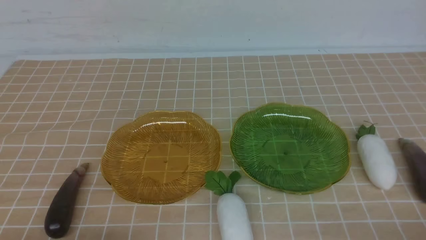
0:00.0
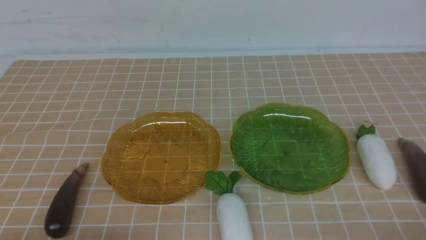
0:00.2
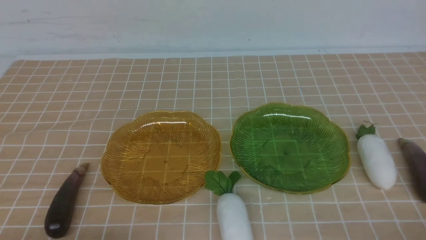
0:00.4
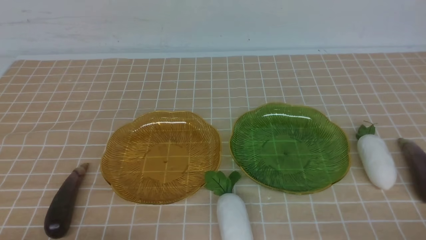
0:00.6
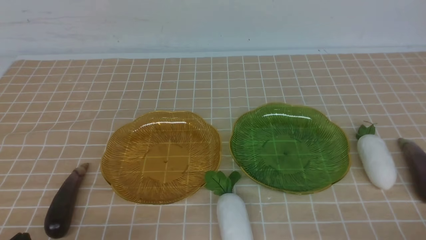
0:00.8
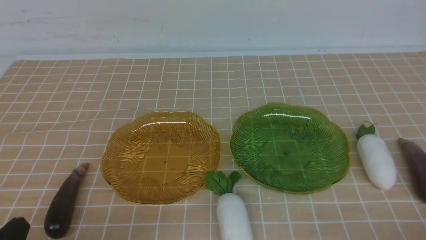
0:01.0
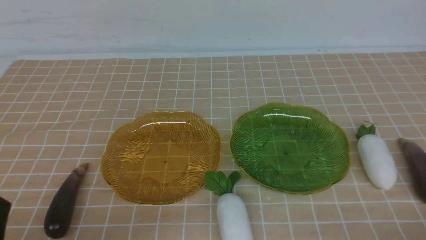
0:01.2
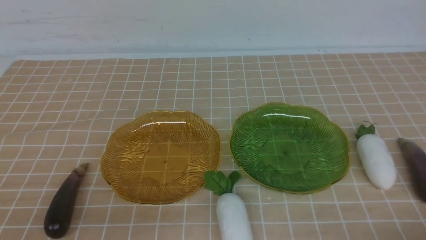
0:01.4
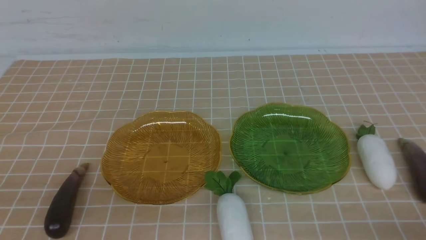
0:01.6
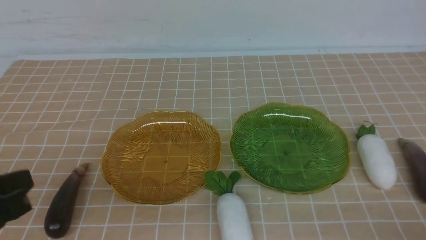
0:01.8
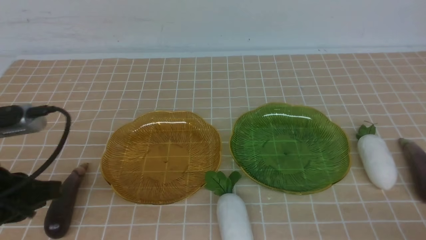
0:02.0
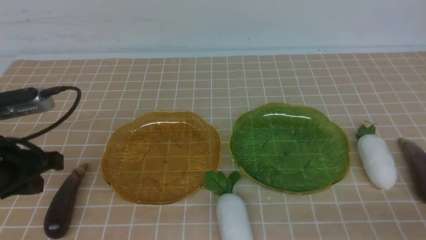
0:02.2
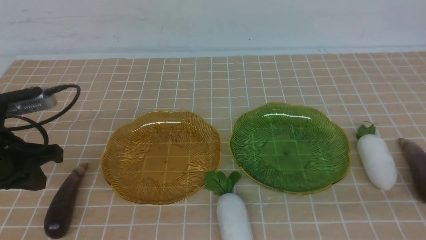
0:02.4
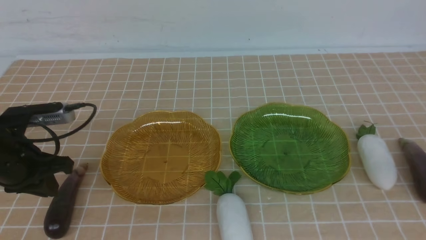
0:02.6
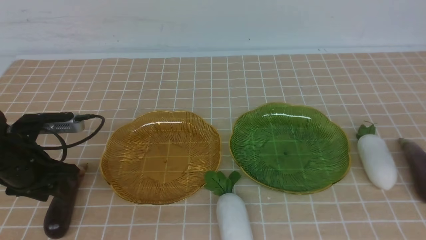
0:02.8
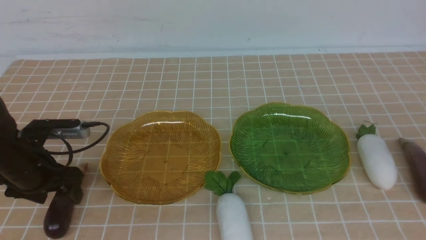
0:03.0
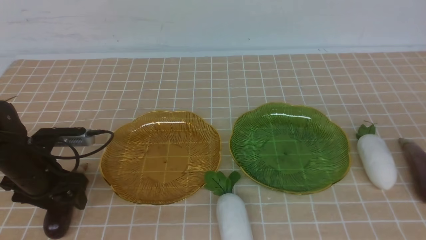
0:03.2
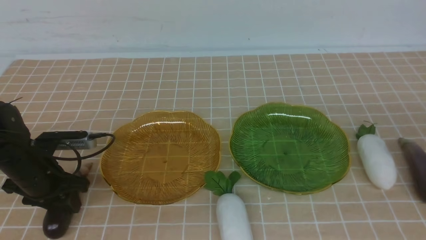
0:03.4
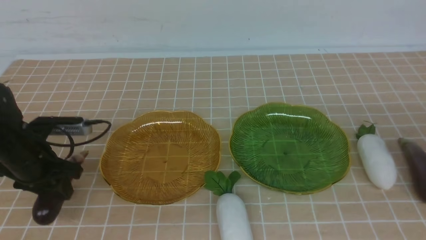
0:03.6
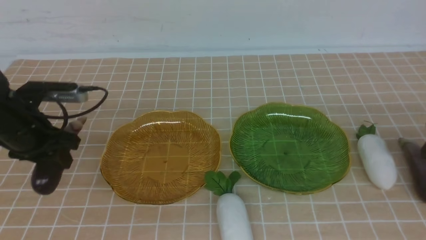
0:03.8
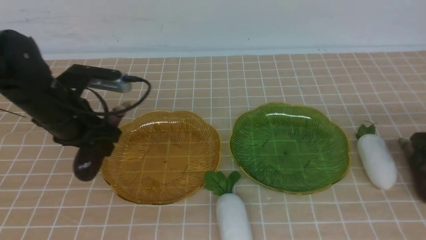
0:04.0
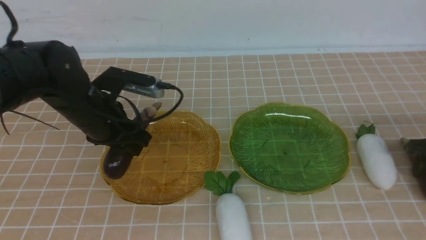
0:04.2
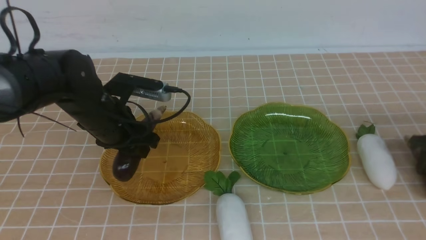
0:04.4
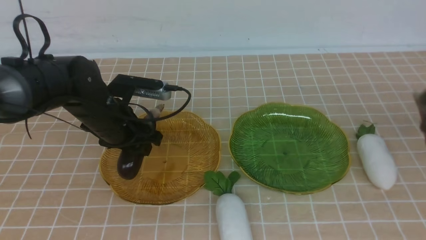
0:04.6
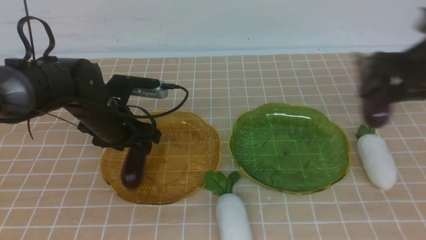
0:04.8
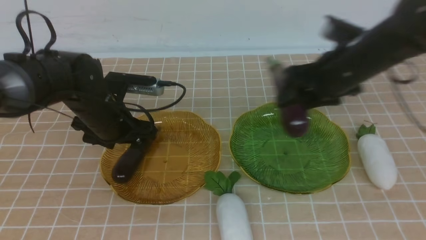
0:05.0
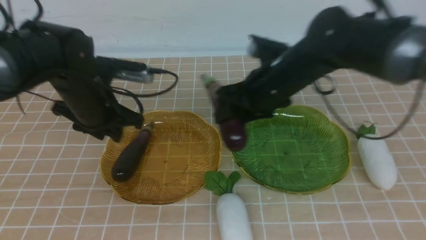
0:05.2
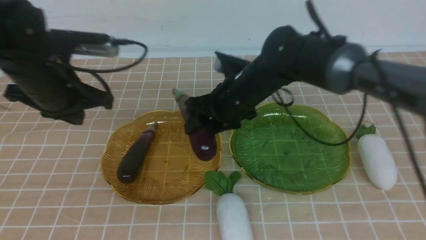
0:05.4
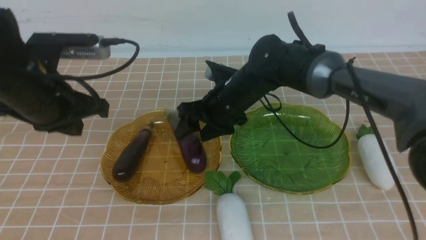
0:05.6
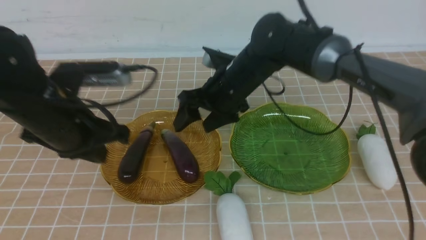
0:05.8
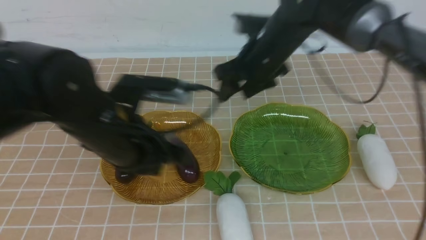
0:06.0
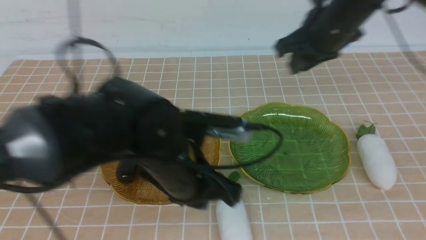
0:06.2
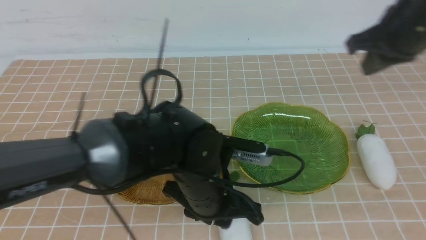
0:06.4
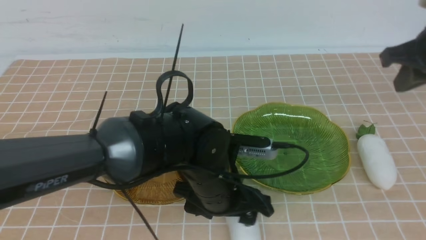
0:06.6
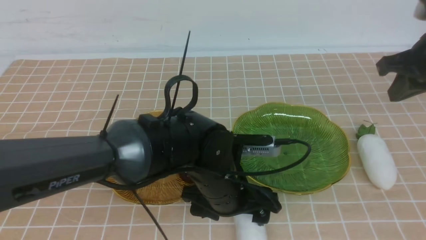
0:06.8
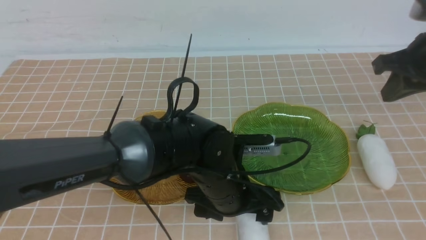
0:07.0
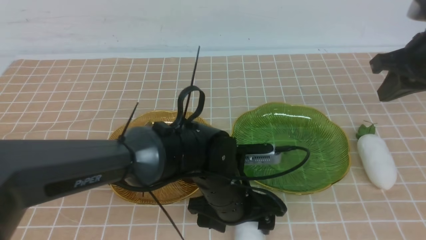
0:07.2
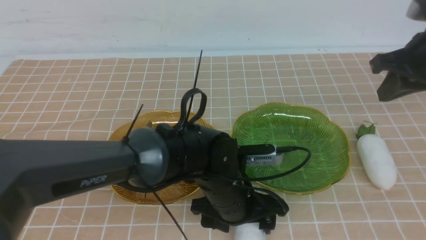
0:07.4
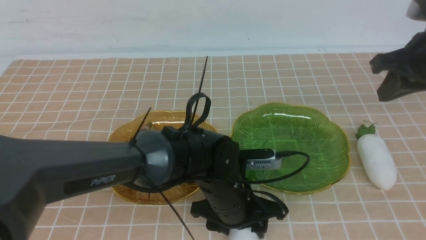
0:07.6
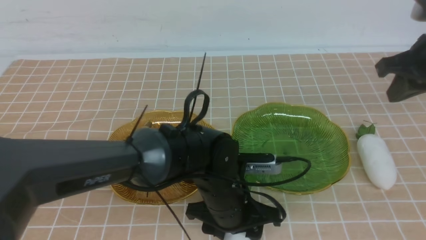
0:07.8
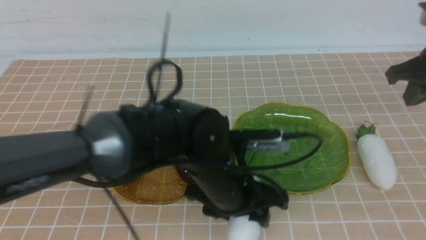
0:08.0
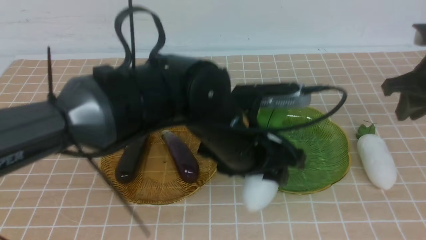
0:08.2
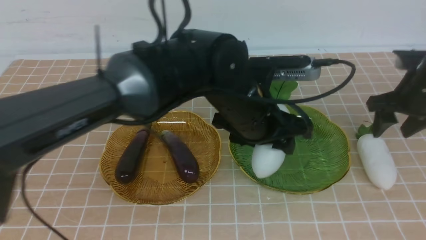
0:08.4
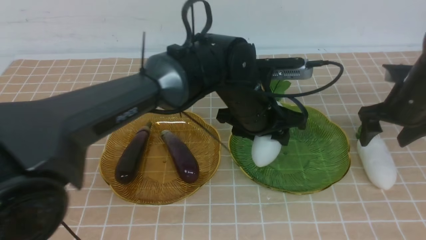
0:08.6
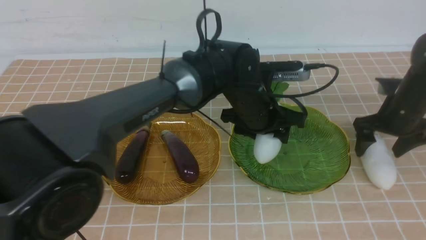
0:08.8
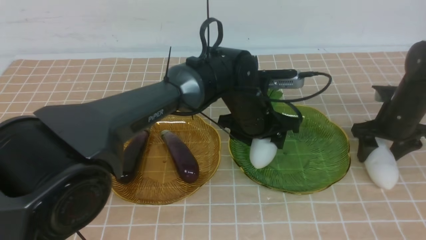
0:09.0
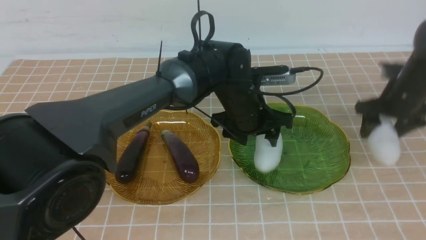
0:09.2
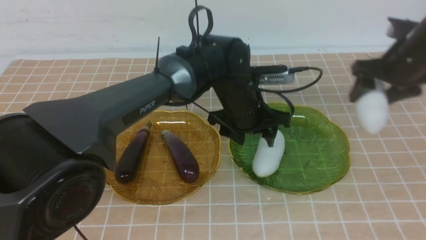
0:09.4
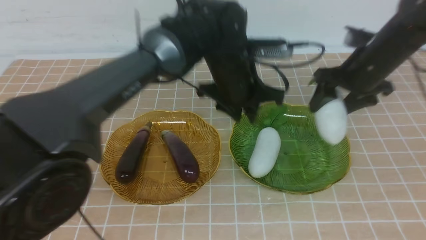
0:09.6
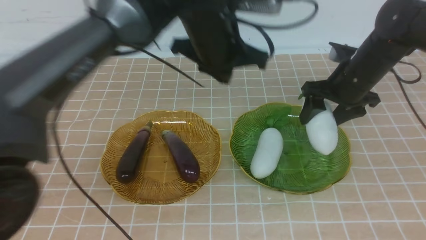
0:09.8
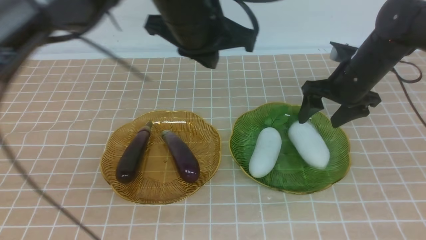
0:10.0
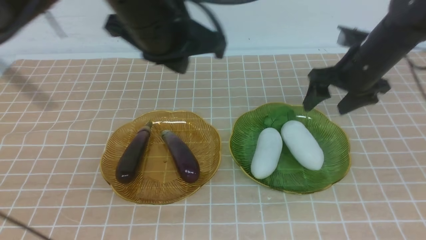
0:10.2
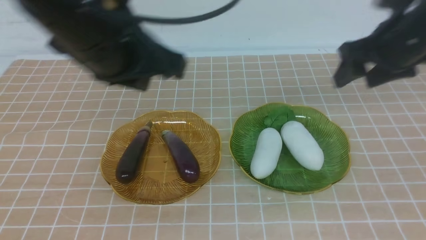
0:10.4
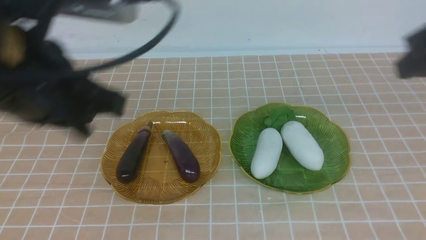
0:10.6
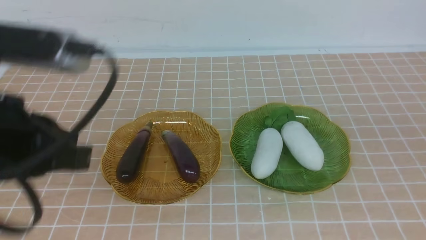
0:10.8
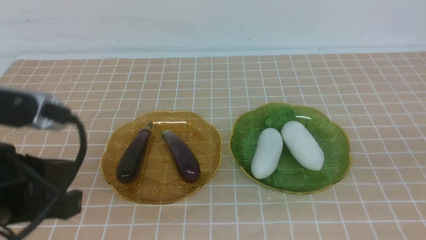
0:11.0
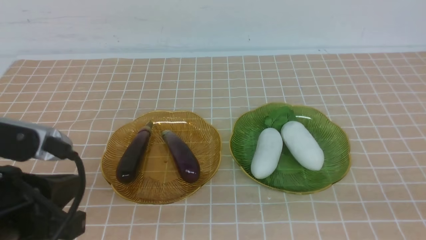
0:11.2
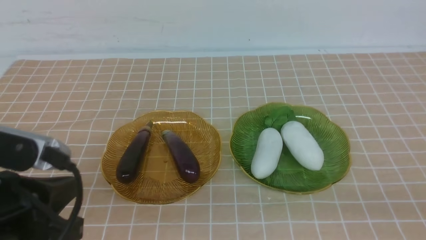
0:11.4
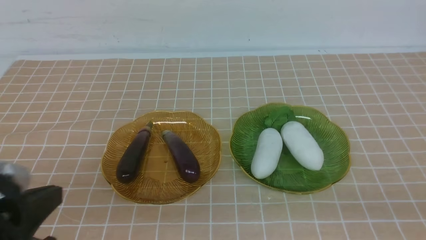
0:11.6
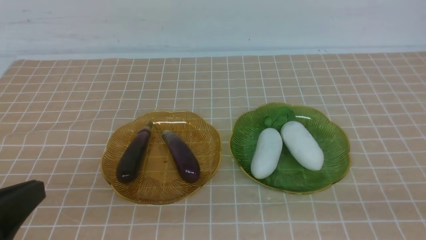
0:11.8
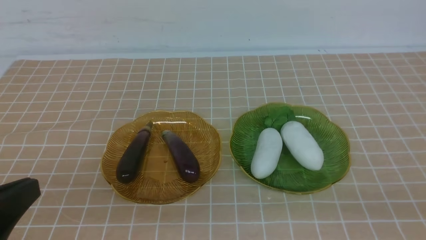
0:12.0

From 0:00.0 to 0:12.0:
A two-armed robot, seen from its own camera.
Step, from 0:00.0 to 0:05.0: use the left arm to grab an eggplant and put it into the left plate.
Step, from 0:05.2 to 0:05.8: use the right arm to grab an eggplant and put it into the left plate.
Step, from 0:06.0 to 0:09.2: use the left arm to grab a radish and put it into the right plate.
Step, from 0:09.4 to 0:10.2: use the right arm to grab a radish and put it into the right plate.
From 0:01.6 to 0:03.0: The left gripper moves forward and downward, approximately 25 cm, and opens. The right gripper is displaced upward and forward by some 20 cm.
From 0:03.0 to 0:04.4: The right gripper goes approximately 20 cm forward and downward, and opens, while the left gripper travels to the right and forward by approximately 15 cm.
From 0:04.4 to 0:06.0: The right gripper is displaced upward by roughly 10 cm, reaches roughly 30 cm to the left, then returns, and closes up, while the left gripper travels to the right and backward by roughly 20 cm, and closes and opens again.
From 0:07.6 to 0:09.0: The right gripper travels forward and downward by some 10 cm, and opens; the left gripper is displaced forward and upward by roughly 15 cm.
From 0:09.0 to 0:10.4: The right gripper heads backward, covering some 35 cm, and closes up. Meanwhile the left gripper goes approximately 35 cm backward and to the left, and closes.
From 0:10.4 to 0:12.0: The right gripper goes approximately 5 cm downward; the left gripper is displaced backward by some 5 cm.

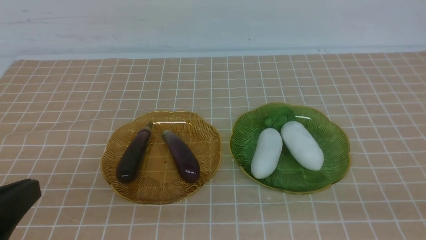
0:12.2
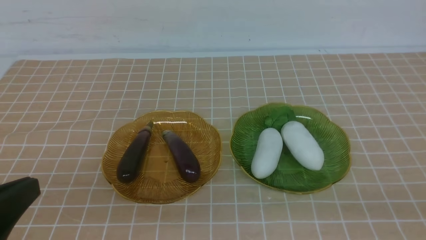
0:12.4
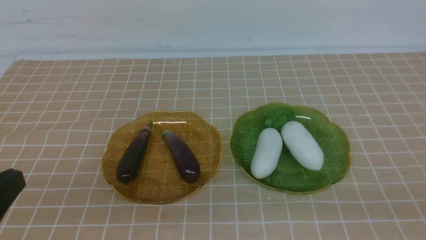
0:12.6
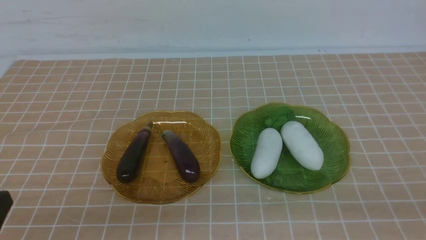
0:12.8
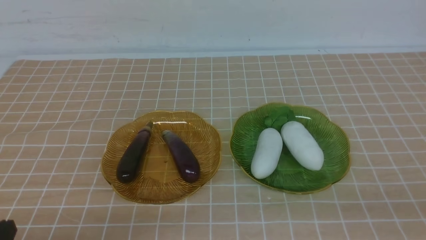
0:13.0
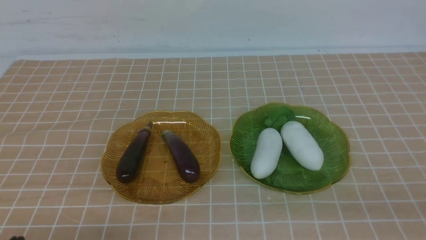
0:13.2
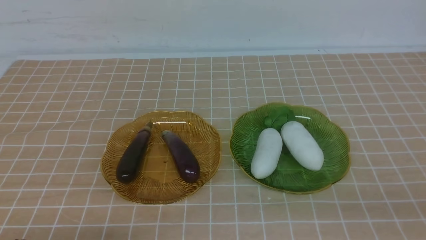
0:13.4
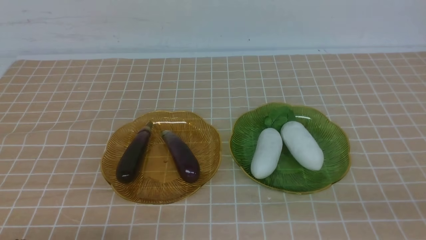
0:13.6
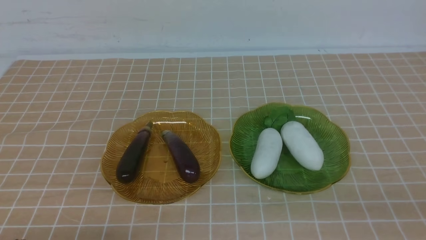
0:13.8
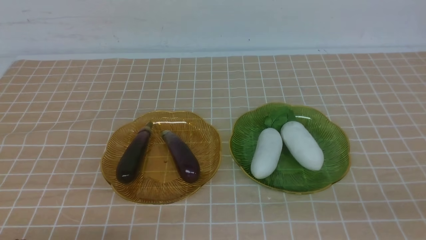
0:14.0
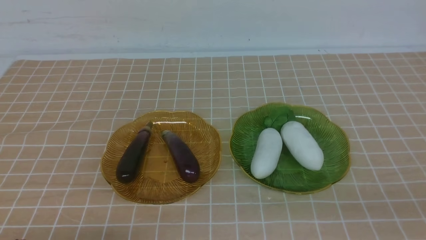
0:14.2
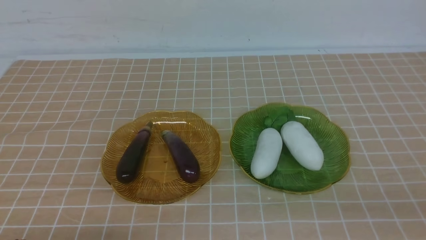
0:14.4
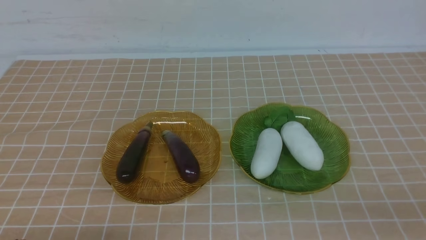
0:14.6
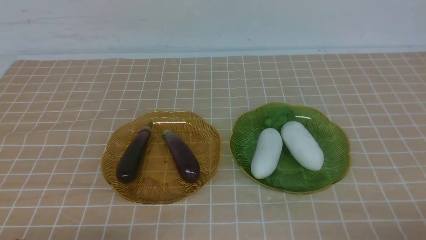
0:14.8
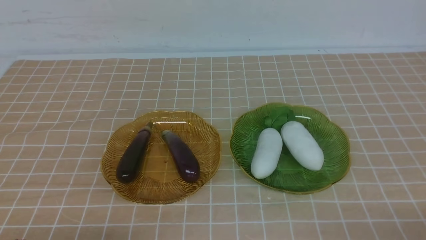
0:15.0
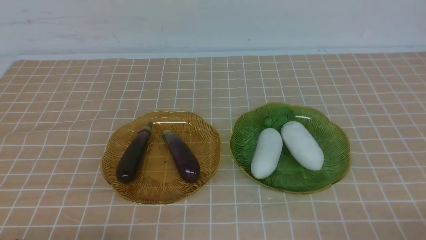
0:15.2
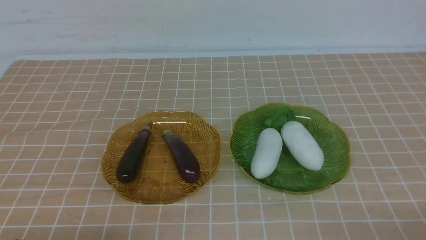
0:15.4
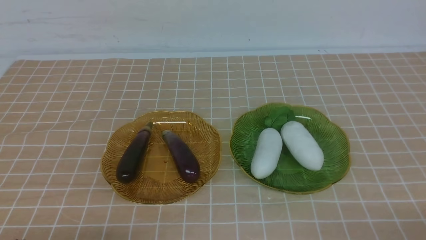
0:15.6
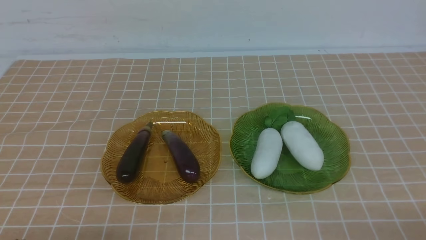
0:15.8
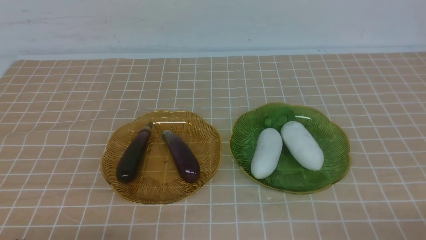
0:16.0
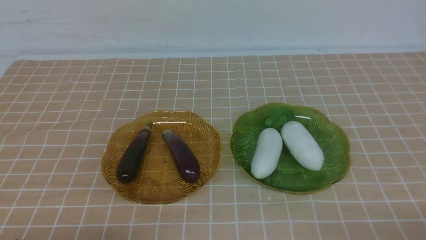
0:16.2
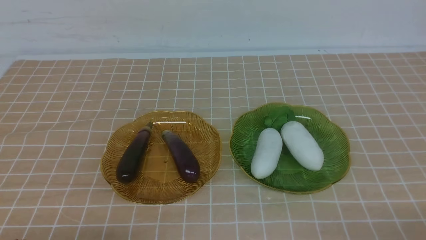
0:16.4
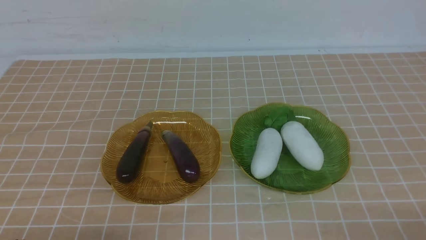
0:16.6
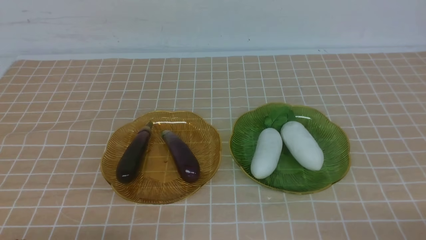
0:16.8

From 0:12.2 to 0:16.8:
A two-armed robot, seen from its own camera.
From 0:12.2 to 0:13.8: The left gripper heads downward, covering approximately 10 cm.
From 0:15.2 to 0:16.8: Both grippers stay about where they are.
